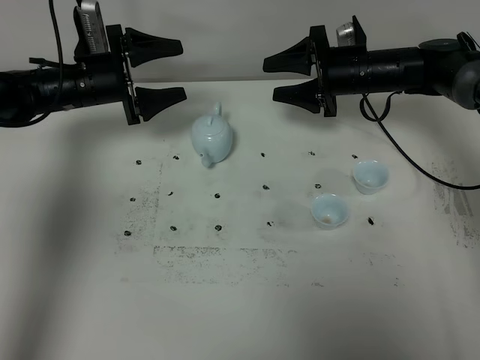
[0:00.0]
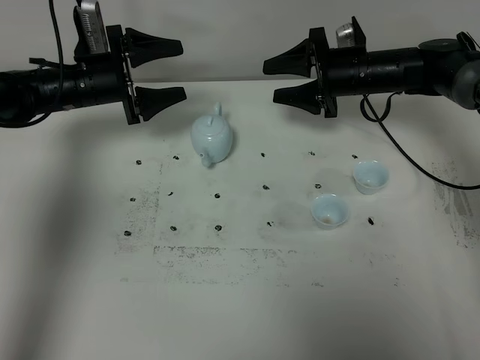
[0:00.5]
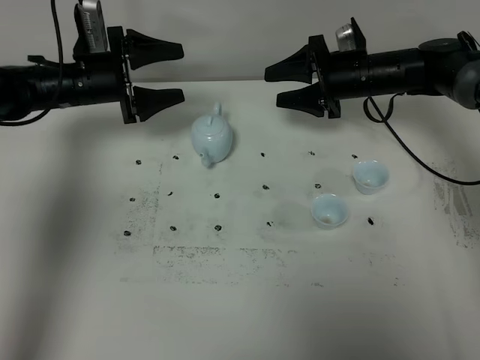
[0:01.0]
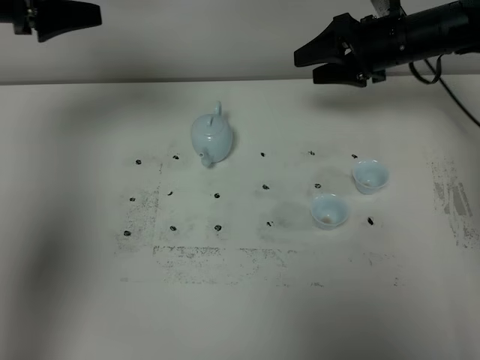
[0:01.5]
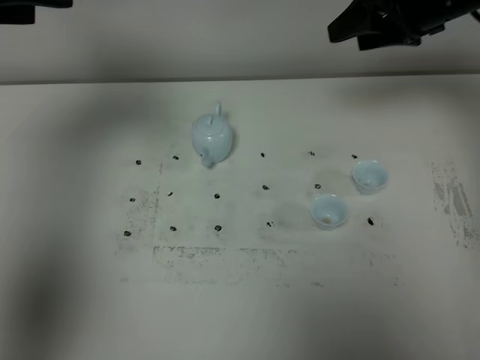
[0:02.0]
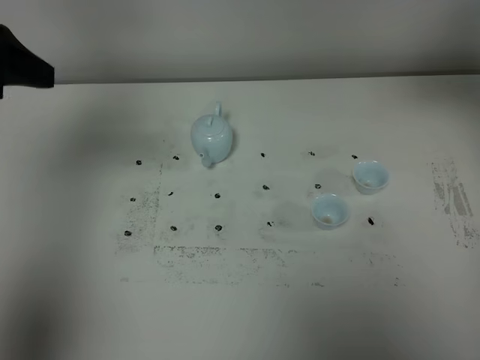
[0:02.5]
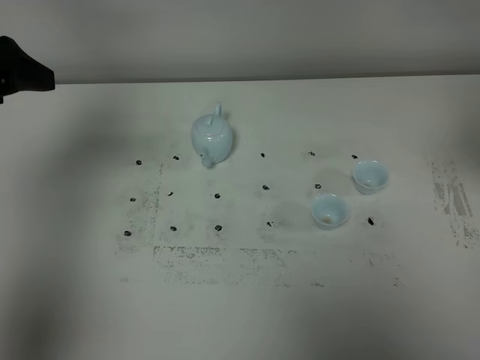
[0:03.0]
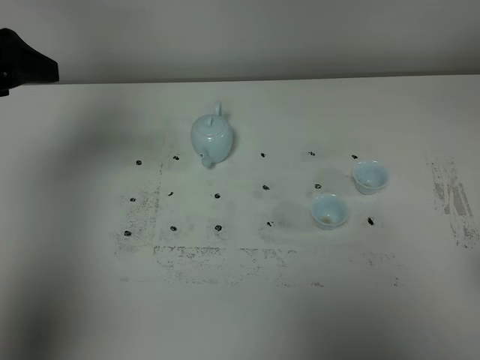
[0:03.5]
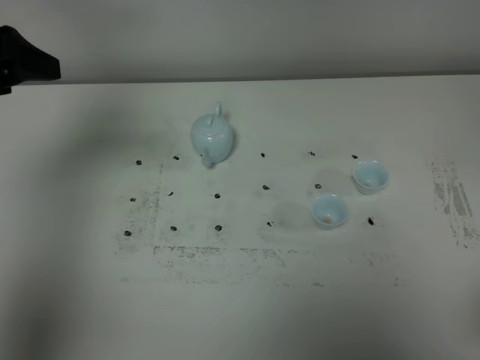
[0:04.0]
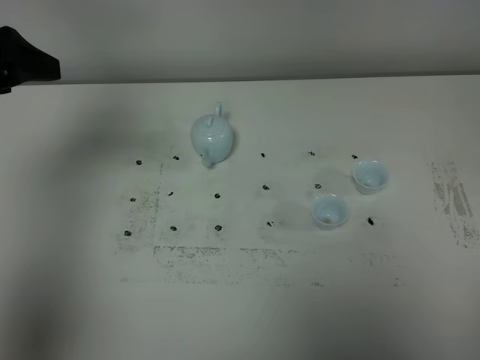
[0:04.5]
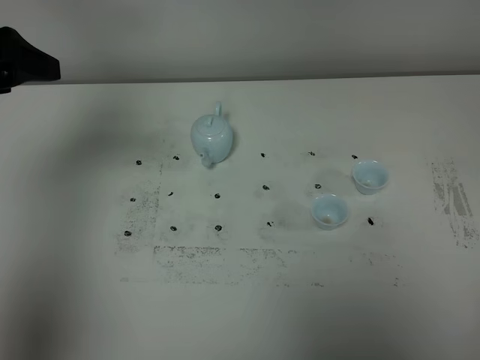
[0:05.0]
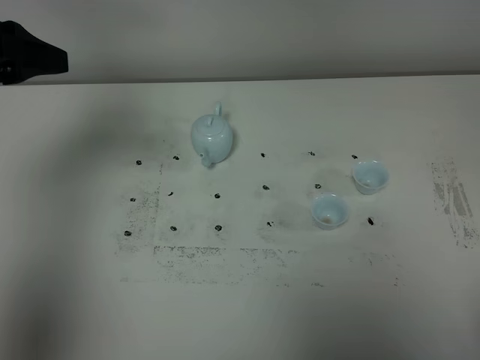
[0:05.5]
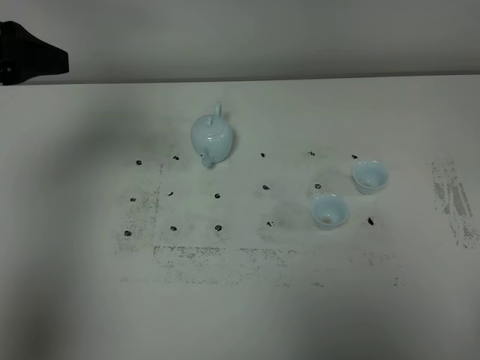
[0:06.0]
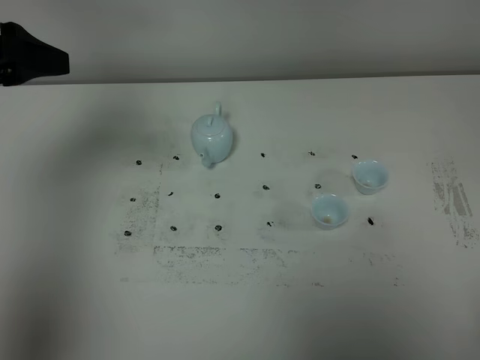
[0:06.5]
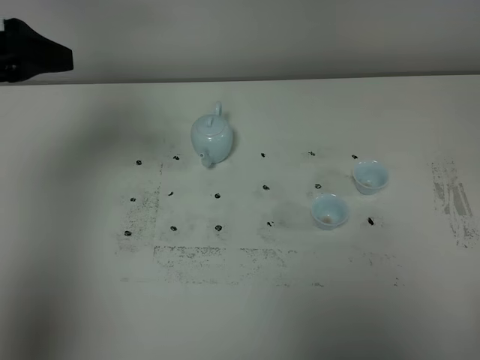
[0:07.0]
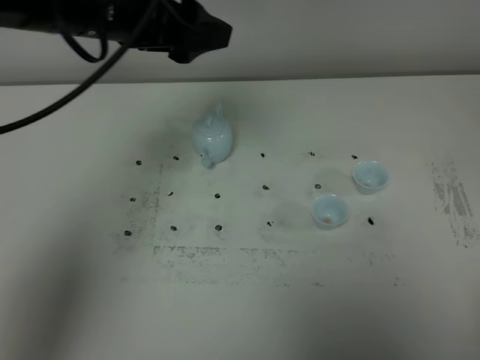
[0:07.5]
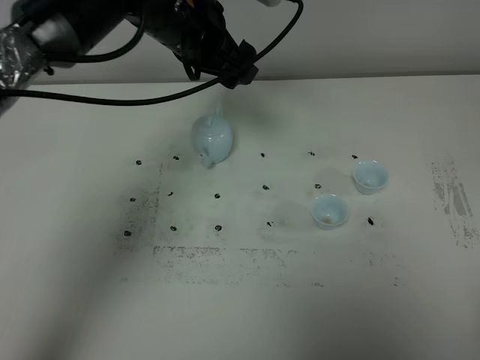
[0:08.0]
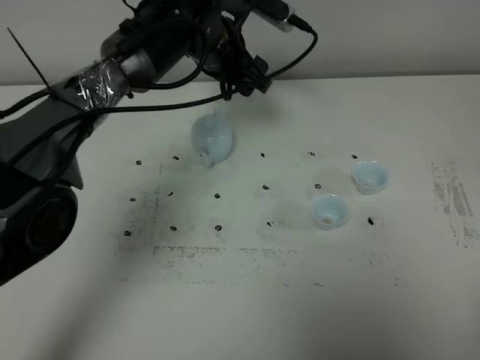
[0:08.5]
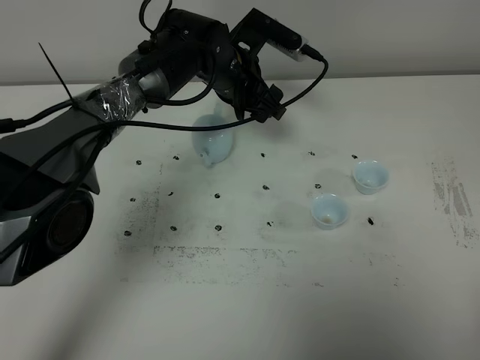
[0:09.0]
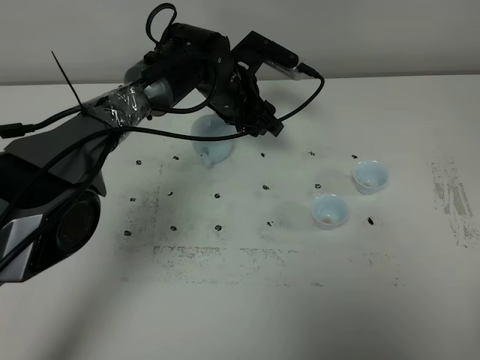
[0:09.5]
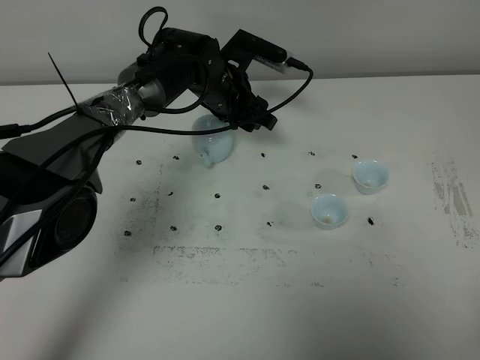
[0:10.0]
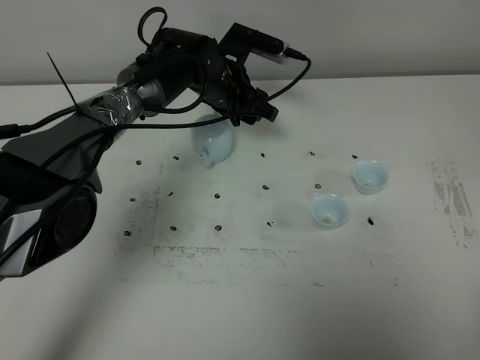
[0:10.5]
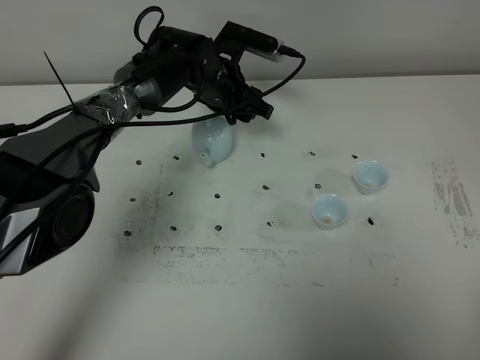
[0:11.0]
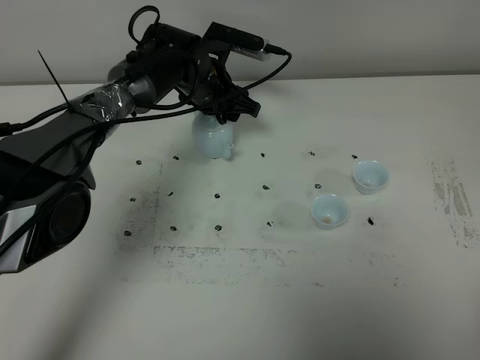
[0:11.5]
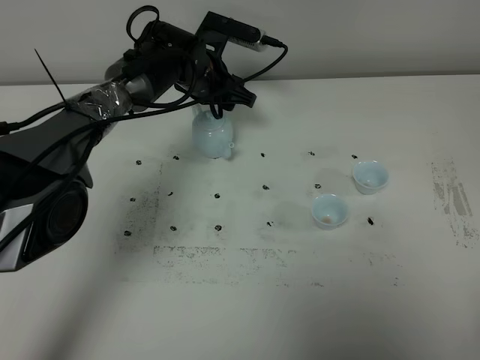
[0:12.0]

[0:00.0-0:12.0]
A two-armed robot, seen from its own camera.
Task of the whole recording: grasp the blue porcelain teapot and pour the tea into the two blue porcelain teacups one by one, put the blue porcelain teapot back in its original place.
0:00.0 to 0:02.0: The left gripper moves upward and backward, about 30 cm. Meanwhile the right gripper moves upward, about 15 cm.
0:02.0 to 0:04.0: The left gripper heads downward, covering about 5 cm; the right gripper travels backward by approximately 40 cm.
0:06.0 to 0:08.0: The left gripper heads to the right and forward, covering some 25 cm.
0:08.0 to 0:10.0: The left gripper is displaced downward and forward by approximately 15 cm.
0:10.0 to 0:12.0: There are only small adjustments of the grippers.

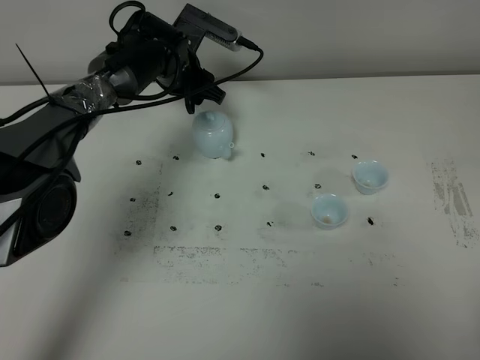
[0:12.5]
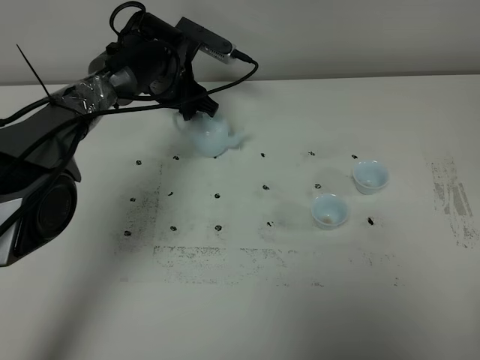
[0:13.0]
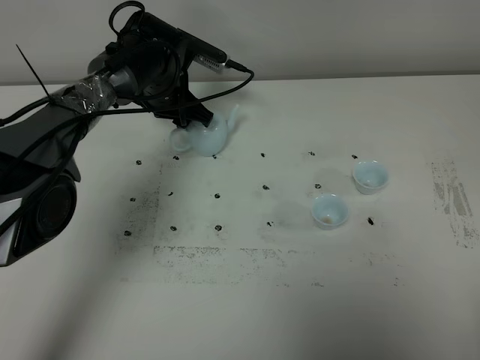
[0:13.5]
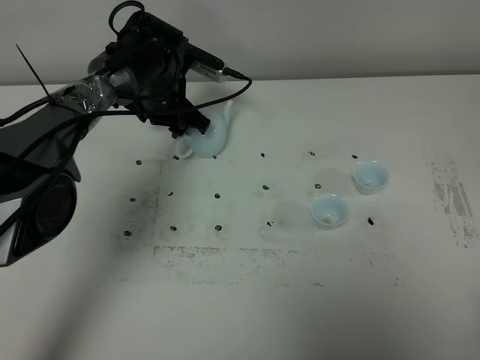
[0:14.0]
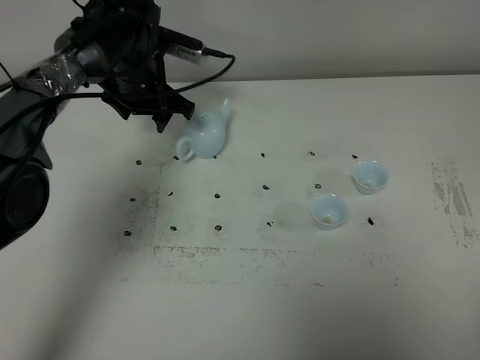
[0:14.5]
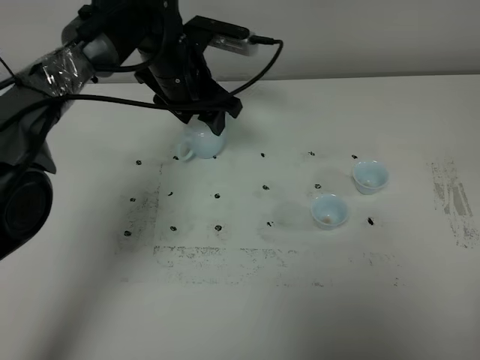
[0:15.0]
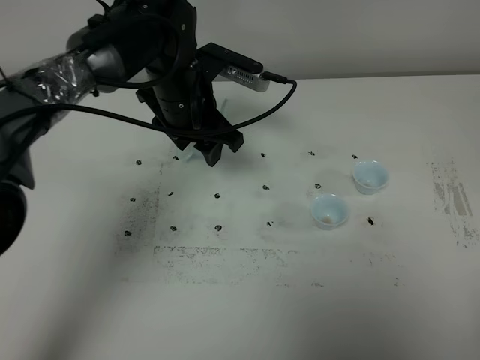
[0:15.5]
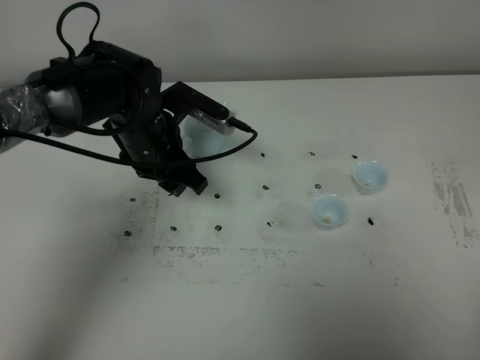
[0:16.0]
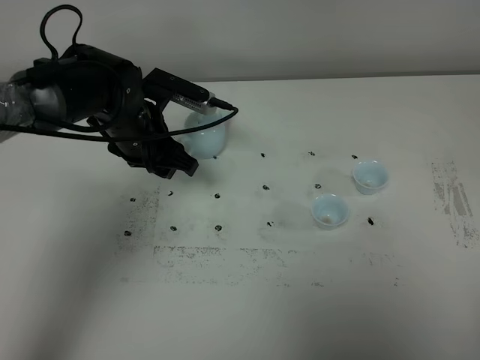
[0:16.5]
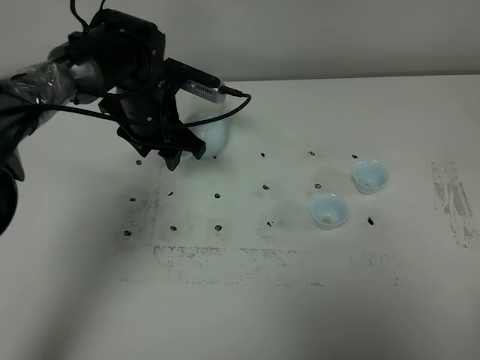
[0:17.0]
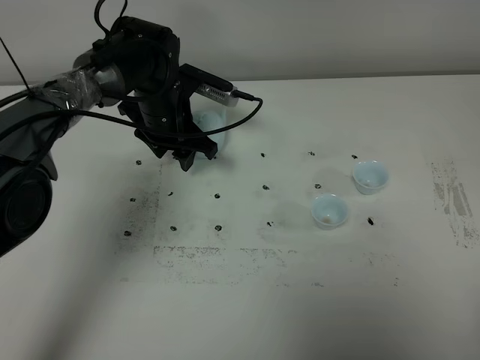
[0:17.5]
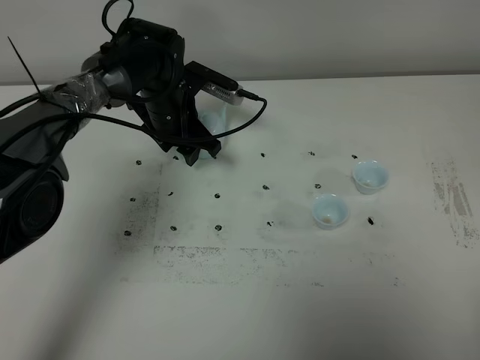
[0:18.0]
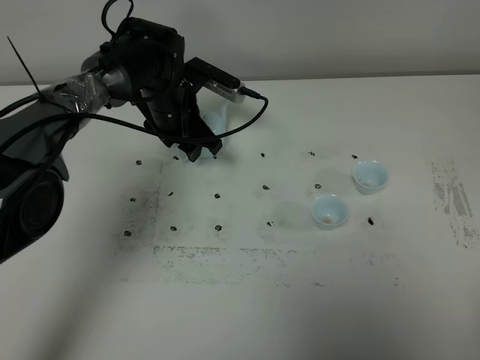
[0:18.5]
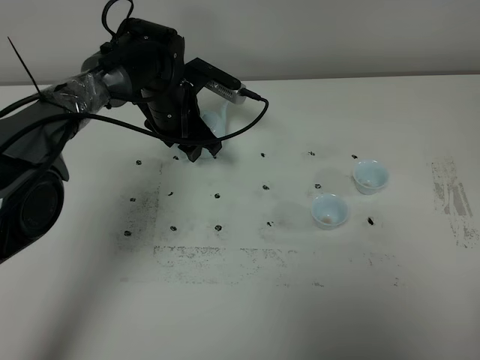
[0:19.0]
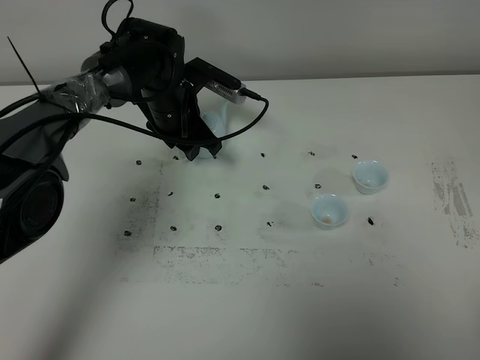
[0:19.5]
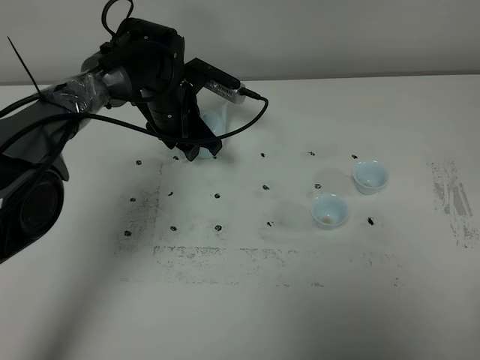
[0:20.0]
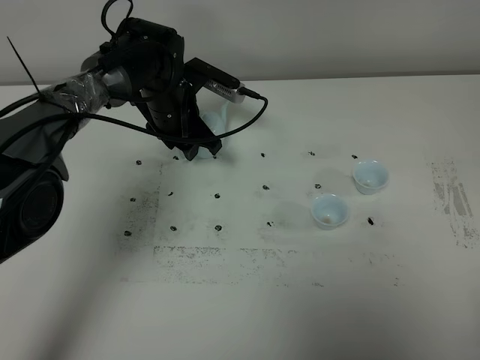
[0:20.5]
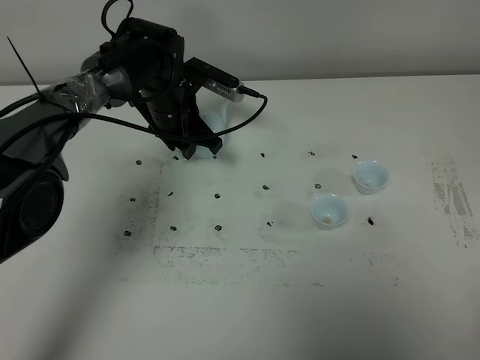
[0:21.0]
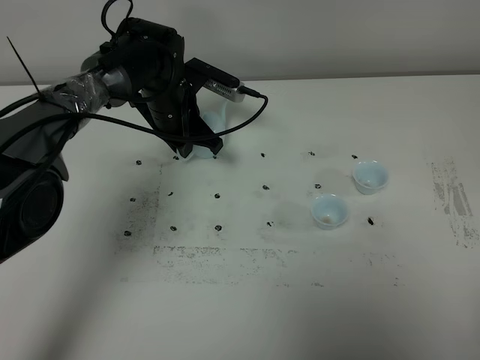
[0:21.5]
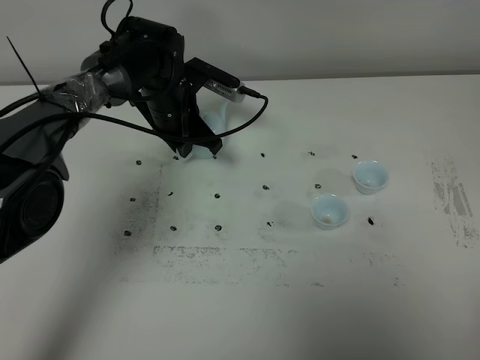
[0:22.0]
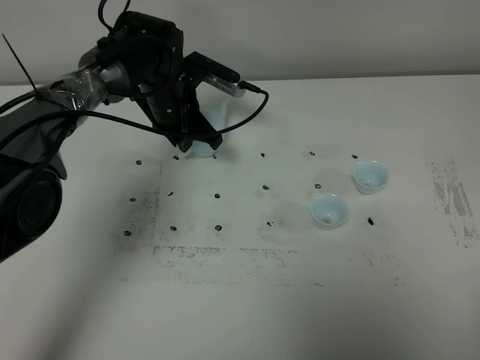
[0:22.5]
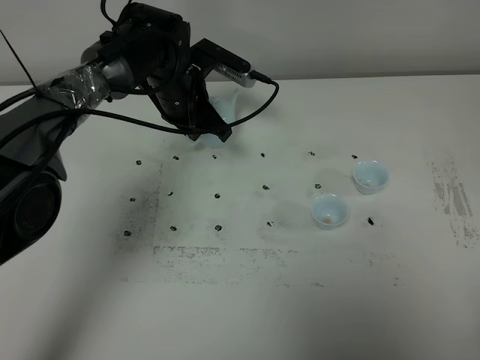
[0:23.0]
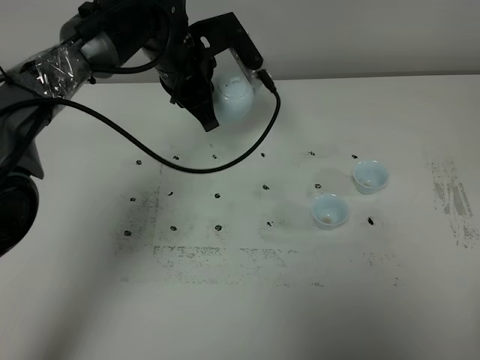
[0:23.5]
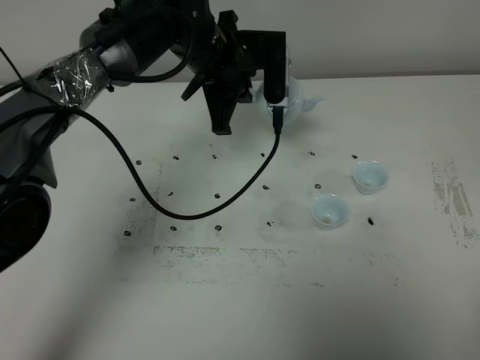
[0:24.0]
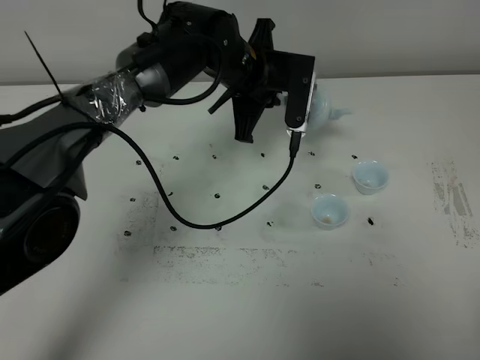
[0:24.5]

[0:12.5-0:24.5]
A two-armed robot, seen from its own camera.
Task of the whole recording: grasp the blue porcelain teapot and pour the tea into the two blue porcelain teacups one by one, put the blue porcelain teapot back in its original place.
0:12.5 to 0:14.5: The left gripper moves approximately 5 cm.
0:14.5 to 0:16.5: The left gripper travels backward by some 10 cm.
0:16.5 to 0:18.5: The left gripper is displaced forward by roughly 10 cm.
0:18.5 to 0:20.5: Both grippers stay about where they are.
0:20.5 to 0:22.5: The left gripper closes.
0:22.5 to 0:24.5: The left gripper is displaced to the right and upward by about 10 cm.

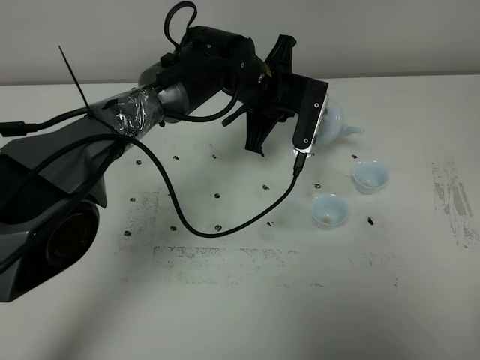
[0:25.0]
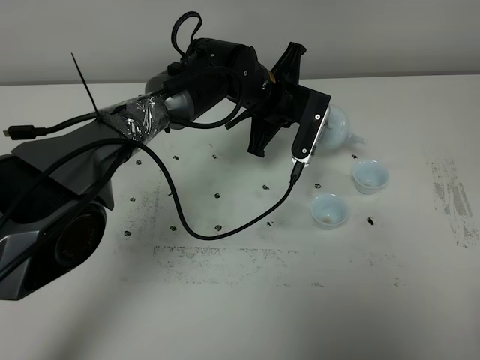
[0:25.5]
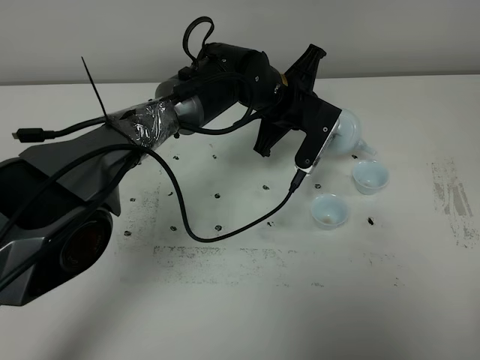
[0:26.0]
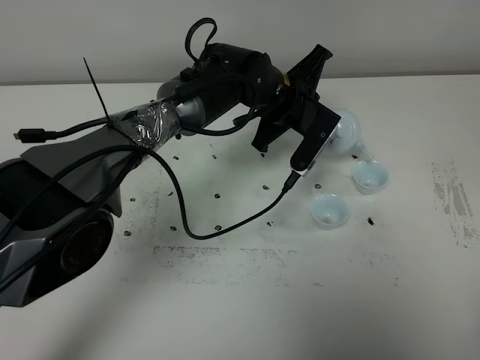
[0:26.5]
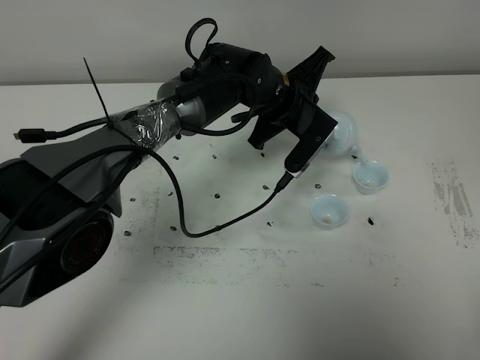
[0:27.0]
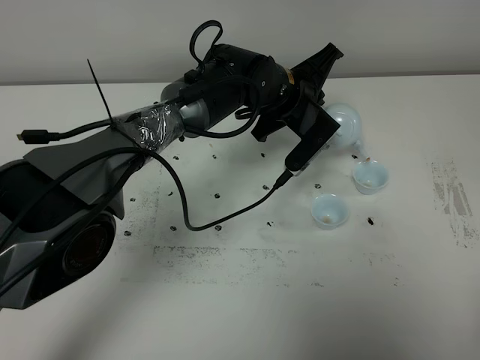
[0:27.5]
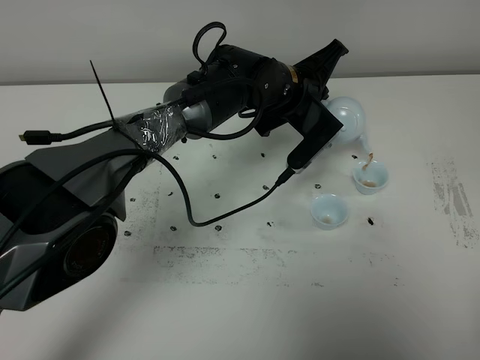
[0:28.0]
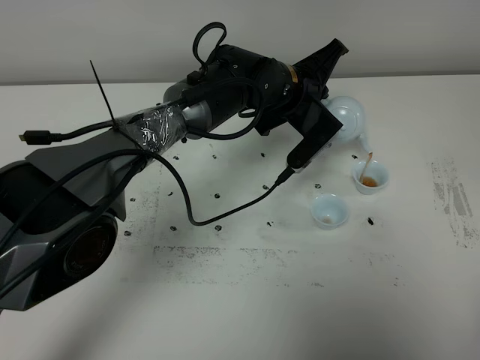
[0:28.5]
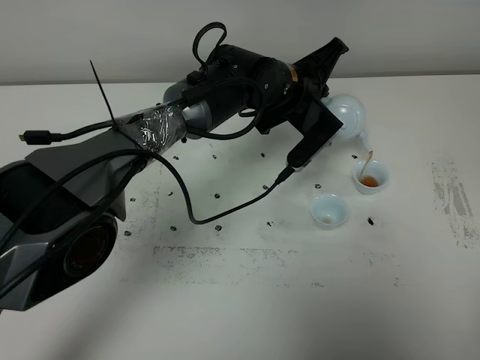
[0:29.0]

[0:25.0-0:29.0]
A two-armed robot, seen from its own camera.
Task of the whole recording: grasp the blue porcelain teapot and pour the tea into the two blue porcelain teacups one by one, put the blue porcelain teapot back in its original place.
0:27.0 to 0:29.0: The grippers move only a little.
